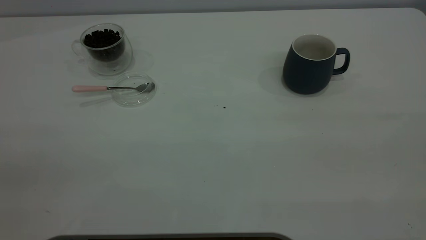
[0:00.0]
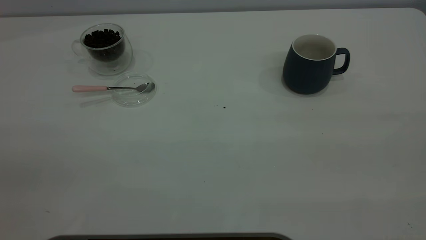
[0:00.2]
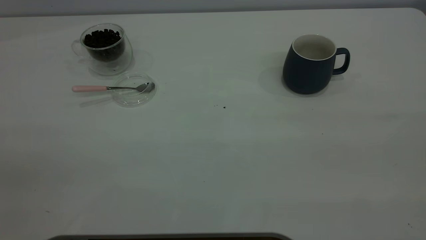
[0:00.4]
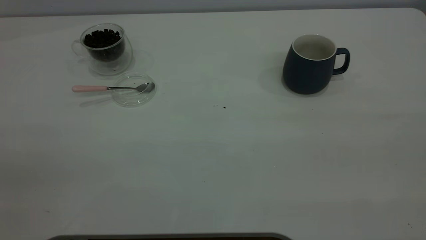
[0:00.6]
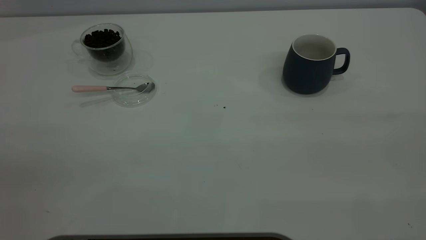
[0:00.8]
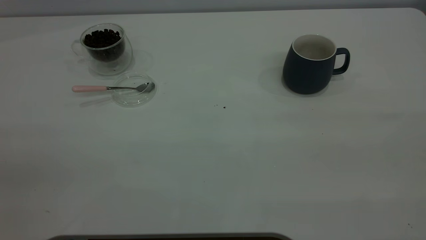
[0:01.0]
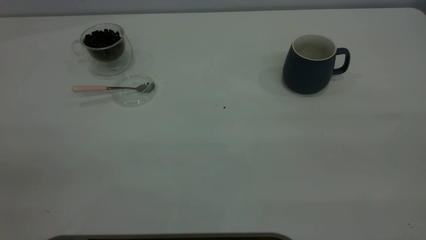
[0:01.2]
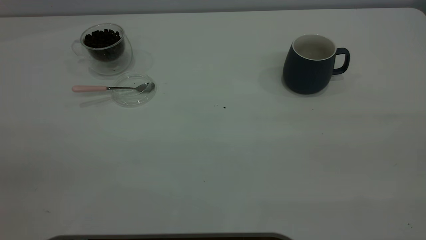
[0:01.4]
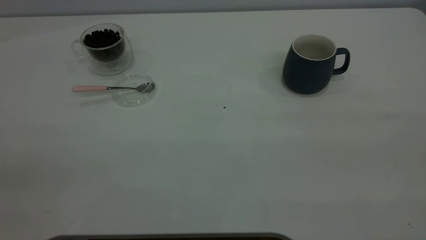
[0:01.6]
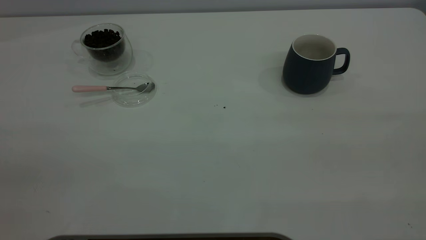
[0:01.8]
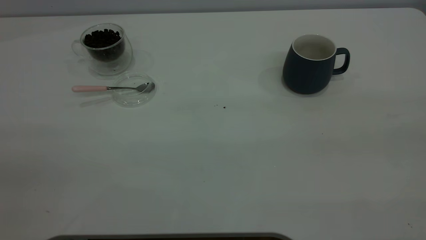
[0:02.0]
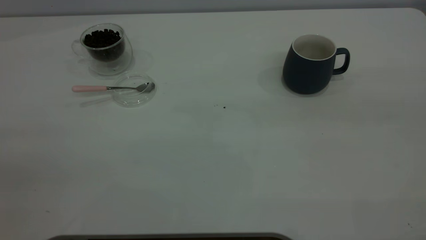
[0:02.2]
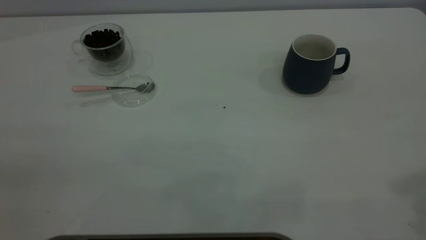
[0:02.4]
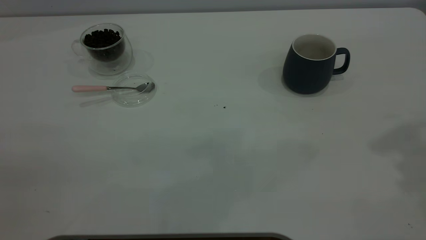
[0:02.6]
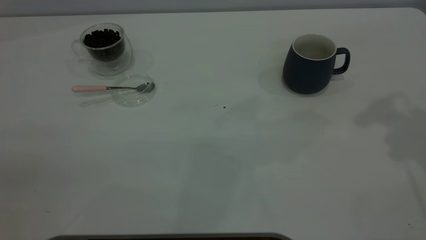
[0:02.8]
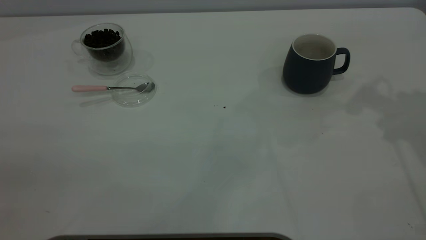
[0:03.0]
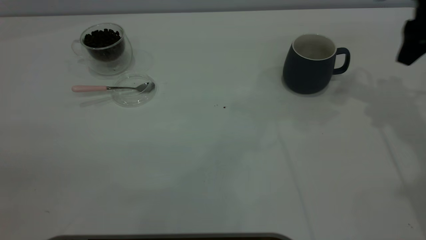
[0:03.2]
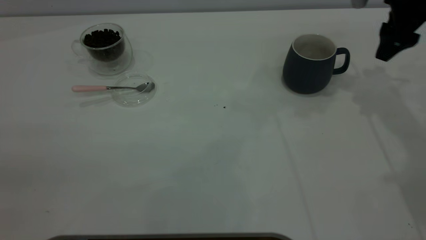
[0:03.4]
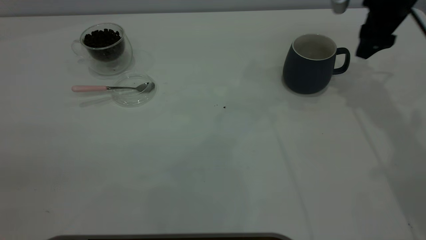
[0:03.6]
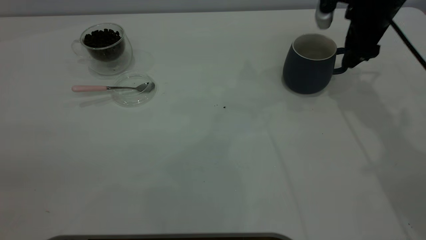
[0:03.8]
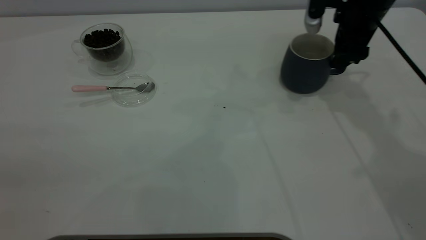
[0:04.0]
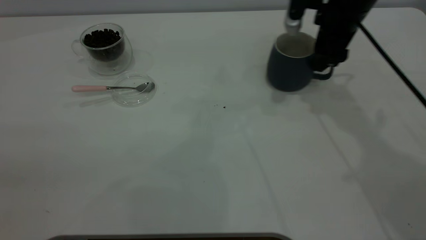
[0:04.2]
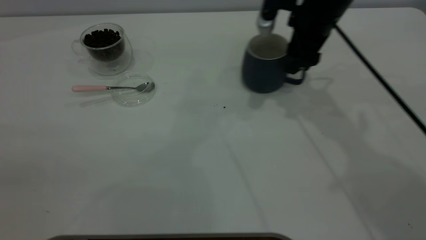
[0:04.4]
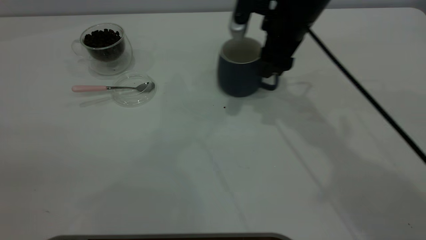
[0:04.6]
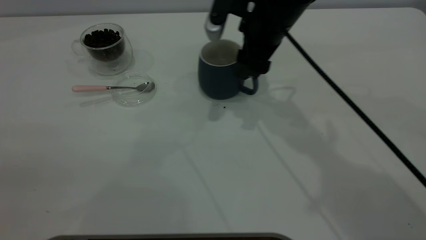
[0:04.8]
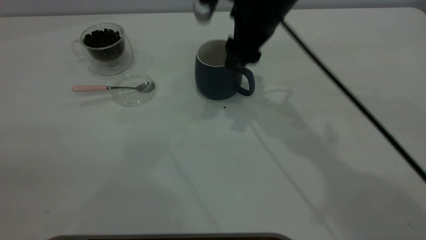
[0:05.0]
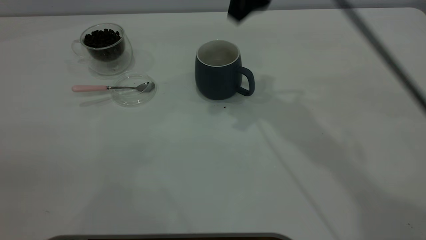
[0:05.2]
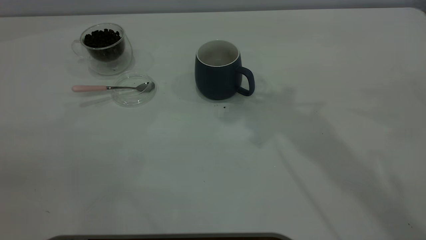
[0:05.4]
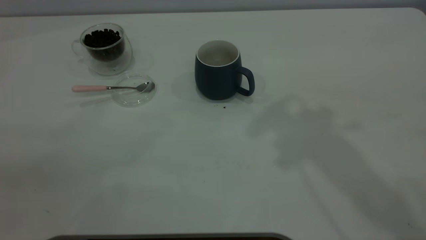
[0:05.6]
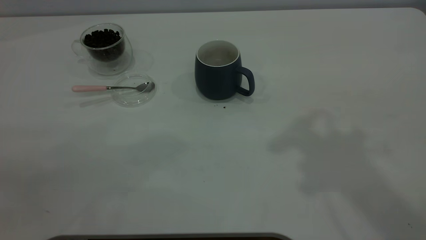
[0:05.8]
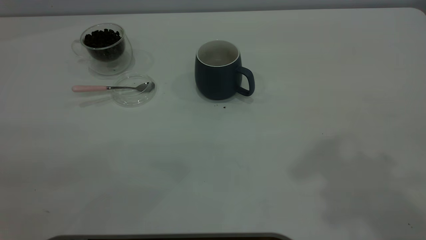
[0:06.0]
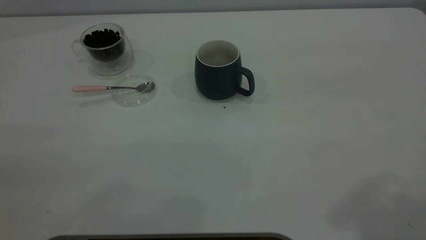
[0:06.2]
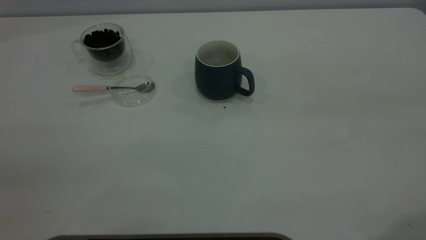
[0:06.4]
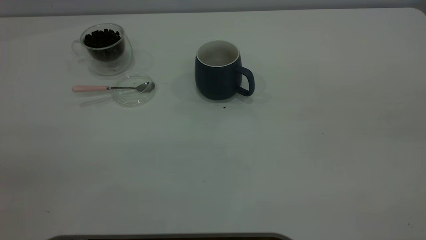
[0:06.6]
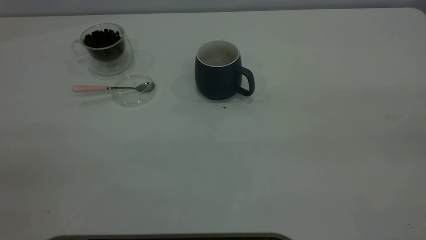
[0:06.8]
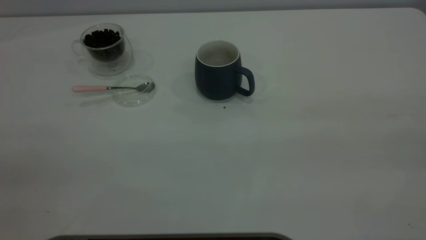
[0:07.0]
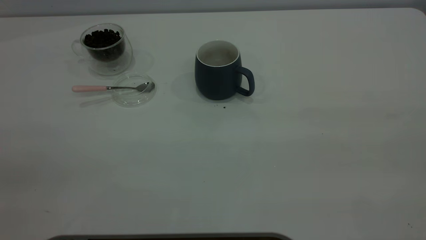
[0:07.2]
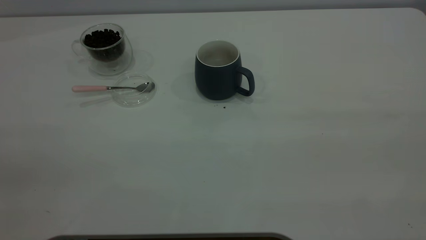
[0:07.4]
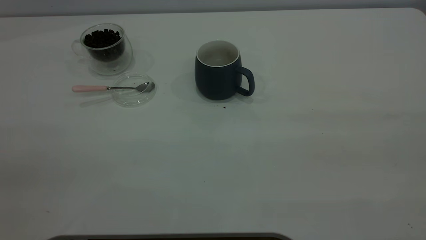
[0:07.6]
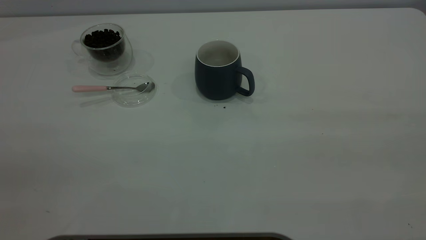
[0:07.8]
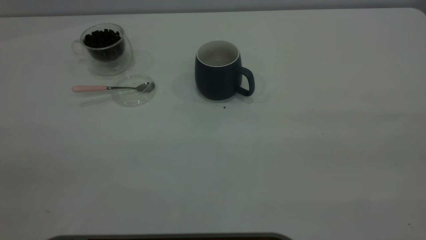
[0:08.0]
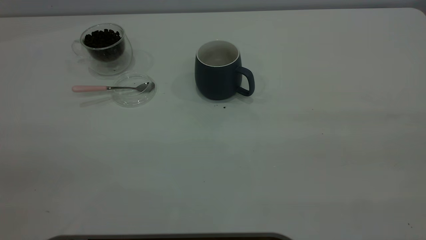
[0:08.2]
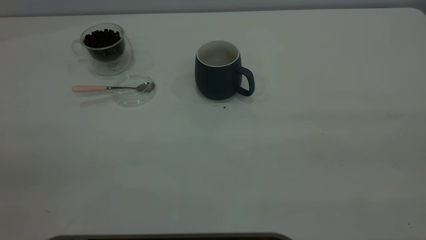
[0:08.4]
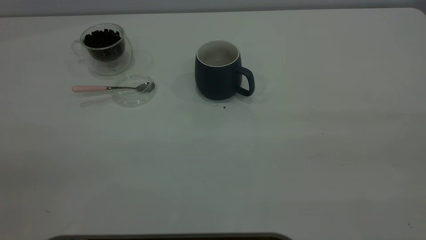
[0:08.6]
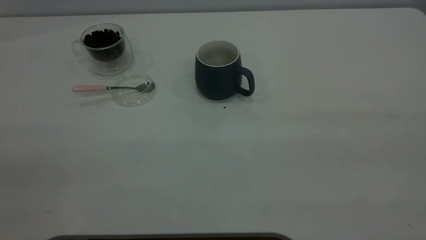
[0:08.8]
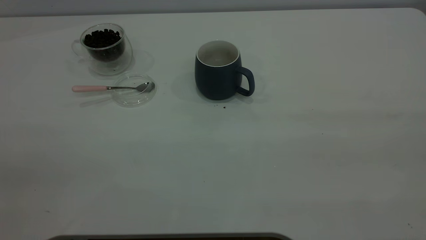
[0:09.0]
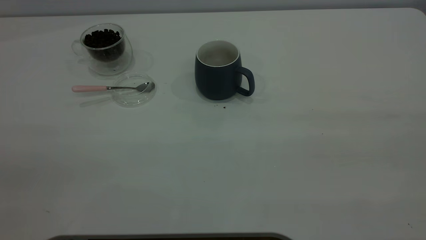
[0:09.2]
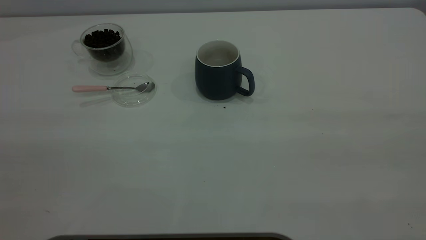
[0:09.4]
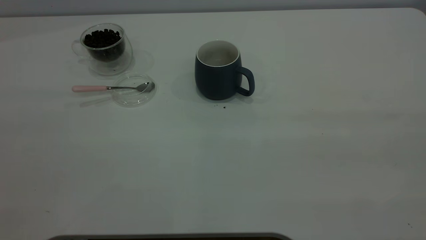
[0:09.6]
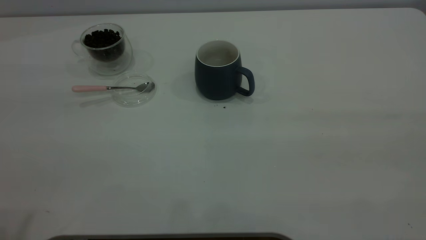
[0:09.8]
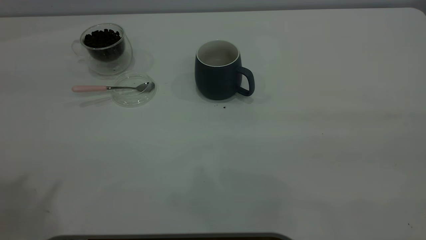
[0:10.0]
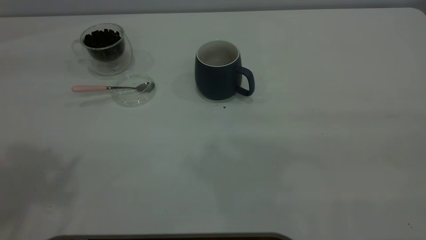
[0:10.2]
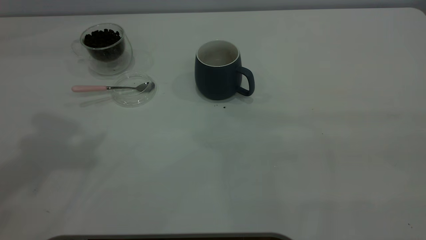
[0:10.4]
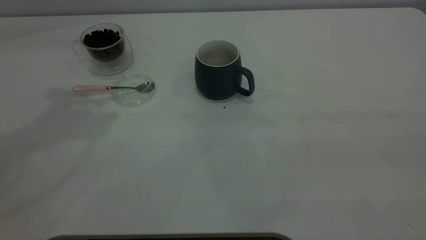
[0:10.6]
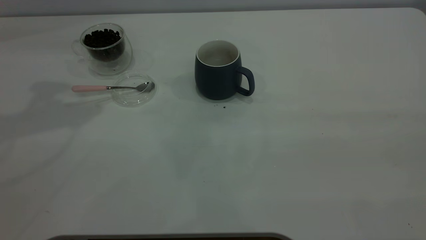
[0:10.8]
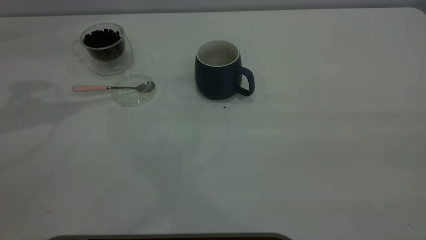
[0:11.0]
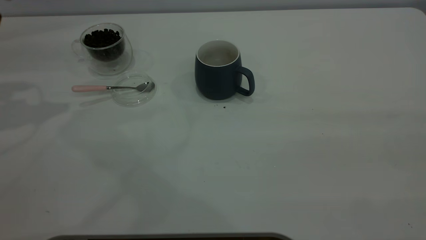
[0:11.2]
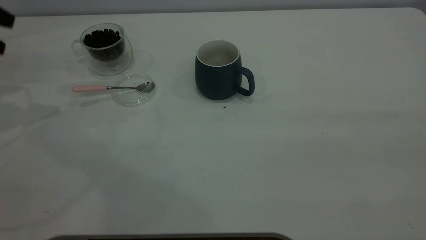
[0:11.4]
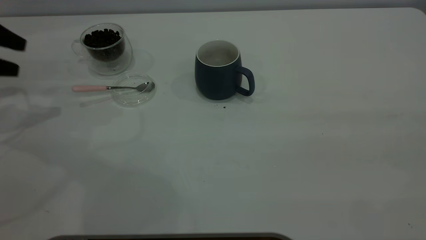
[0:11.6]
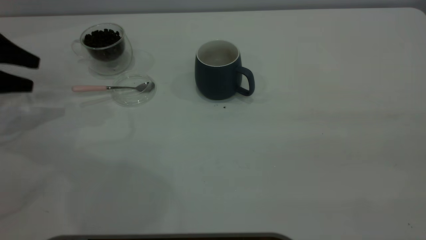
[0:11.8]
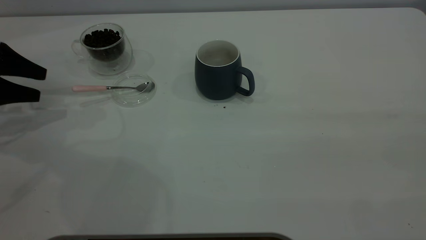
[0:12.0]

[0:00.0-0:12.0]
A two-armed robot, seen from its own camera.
Task of the whole recording: the right gripper place the grey cup in the center of the table, the left gripper take the pink spoon from the cup lid and scoop out the coffee beans from the coffee cup and put them into the grey cup, the left gripper put the spoon back into the cup lid.
Step, 0:00.0 to 0:05.0: Move the cup to the center of view.
0:00.0 to 0:01.6: The two grippers keep their place.
0:03.0 to 0:04.4: The right gripper moves to the left and downward, approximately 20 cm, and closes up.
0:04.4 to 0:06.0: The right gripper travels upward and backward by some 35 cm.
0:07.6 to 0:09.0: The two grippers keep their place.
0:10.4 to 0:12.0: The left gripper travels downward and to the left by approximately 35 cm.

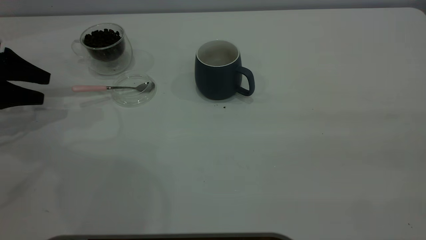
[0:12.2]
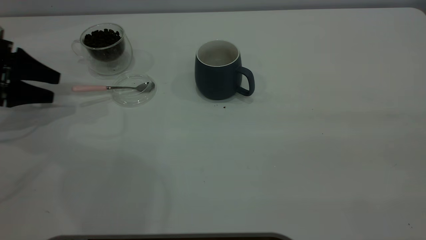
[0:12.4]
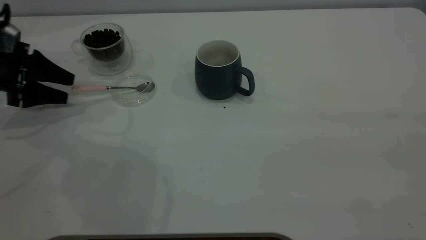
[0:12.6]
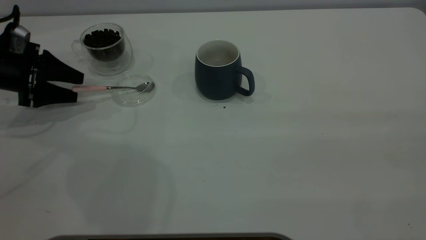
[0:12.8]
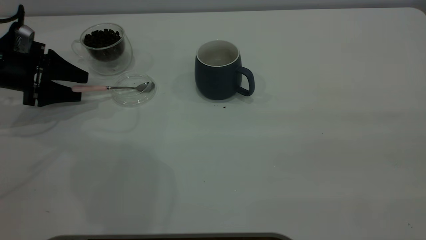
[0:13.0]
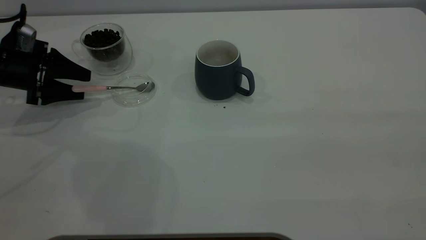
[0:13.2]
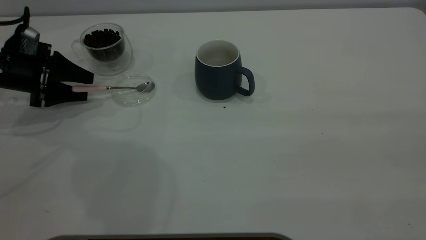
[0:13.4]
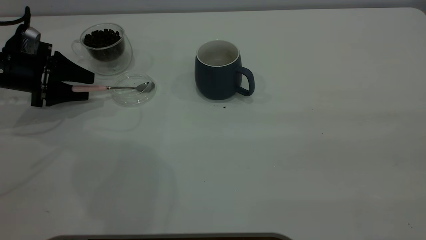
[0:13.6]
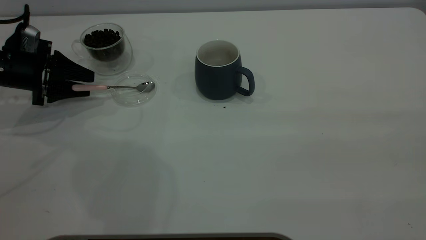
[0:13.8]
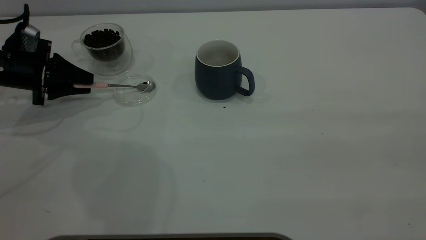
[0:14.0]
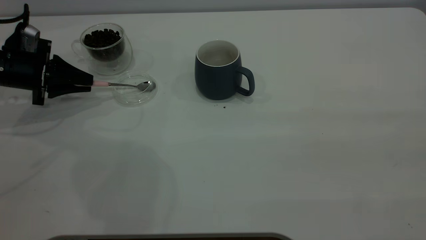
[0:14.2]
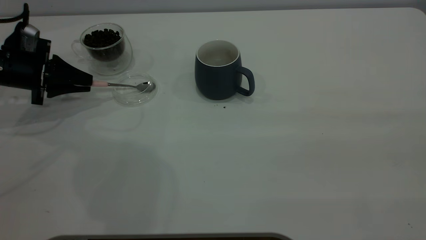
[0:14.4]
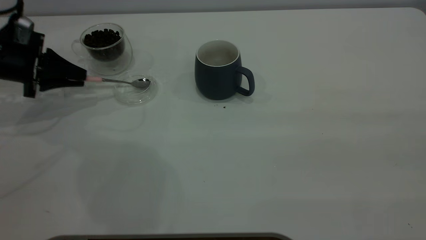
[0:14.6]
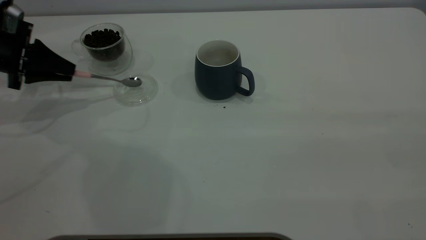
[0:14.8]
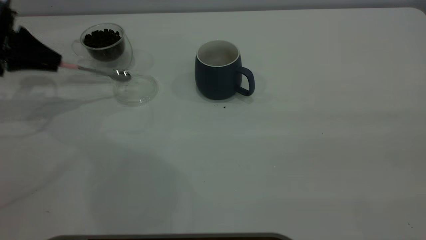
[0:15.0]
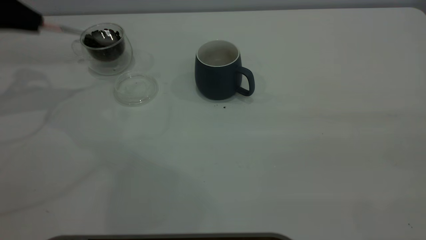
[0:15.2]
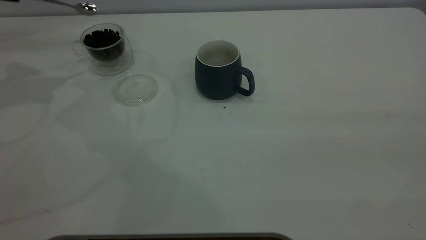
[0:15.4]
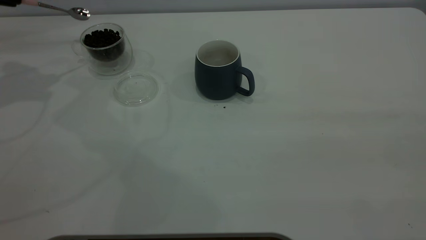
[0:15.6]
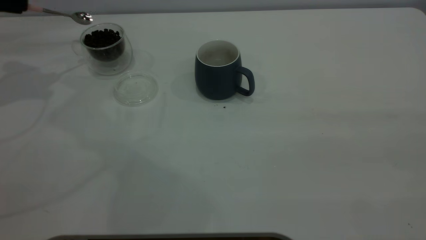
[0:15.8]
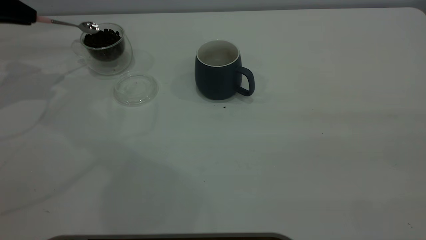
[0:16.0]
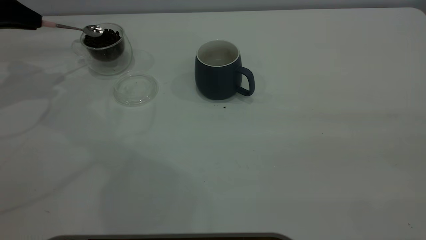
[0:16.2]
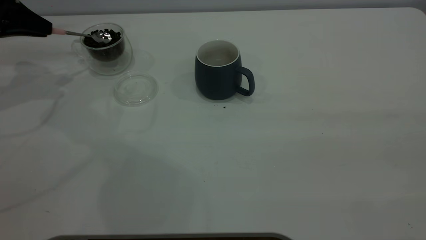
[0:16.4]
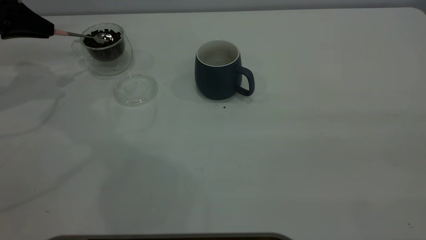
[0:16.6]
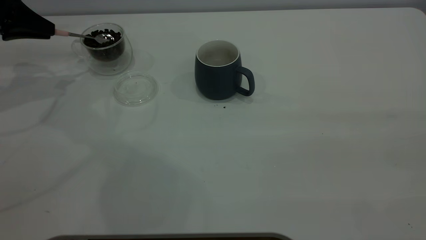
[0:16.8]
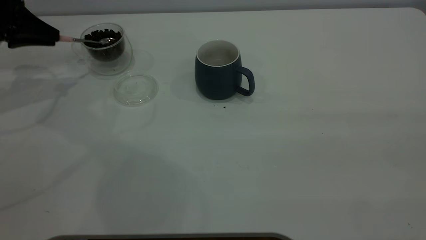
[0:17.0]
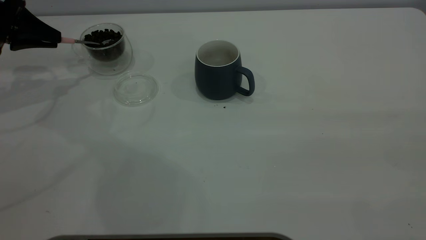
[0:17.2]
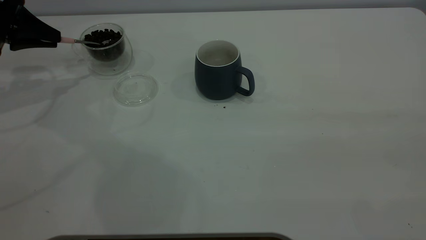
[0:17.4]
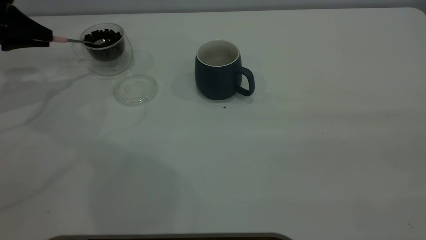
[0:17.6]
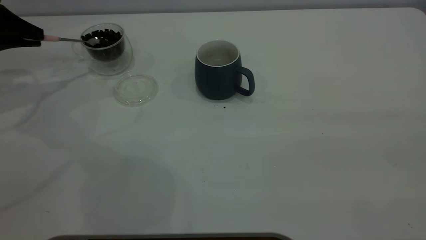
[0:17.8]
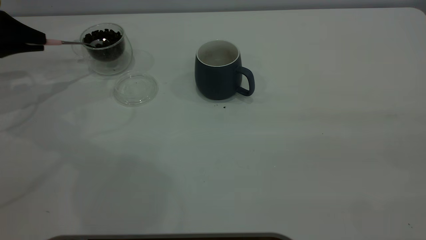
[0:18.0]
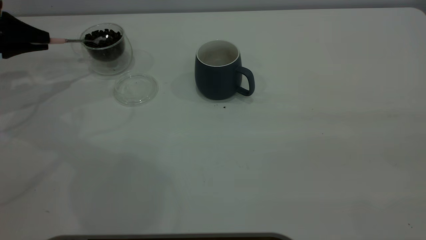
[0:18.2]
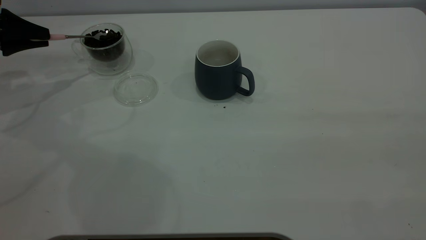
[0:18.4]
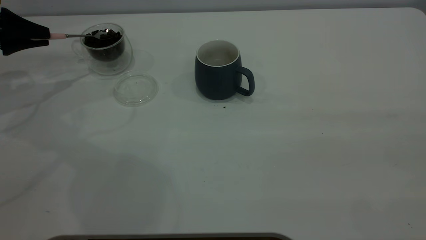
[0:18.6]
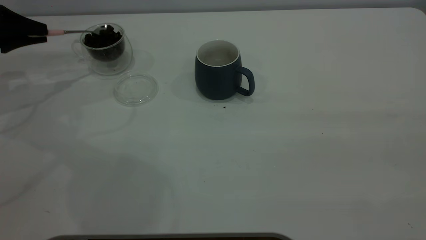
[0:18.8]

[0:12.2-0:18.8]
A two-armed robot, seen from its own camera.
Task of the whole recording: the right gripper place the grey cup in the center of the table, the left gripper take the pink spoon from the cup lid and scoop out the coffee beans from the coffee cup and put them into the grey cup, the left gripper put the spoon back into the cup lid.
Step, 0:12.2 to 0:15.0: Pick up the spoon.
0:12.2 to 0:13.8: The left gripper is displaced to the right by some 5 cm, and closes its fingers.
0:13.8 to 0:15.4: The left gripper heads upward, covering about 20 cm, and closes.
0:15.4 to 0:17.2: The left gripper travels downward by about 10 cm.
0:17.2 to 0:18.8: The grippers stay close to where they were, moving slightly.
